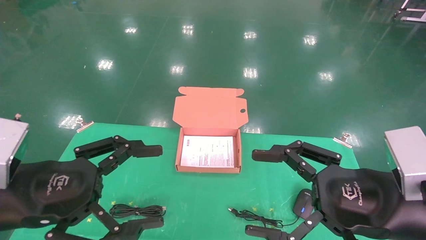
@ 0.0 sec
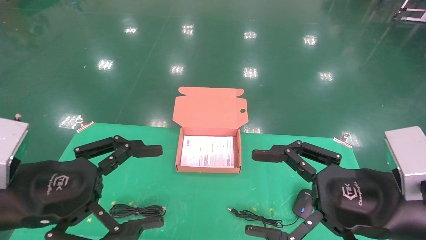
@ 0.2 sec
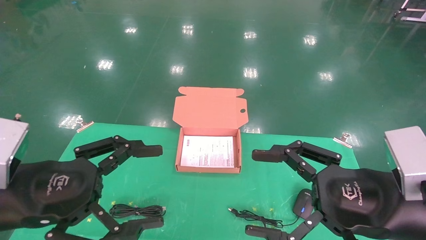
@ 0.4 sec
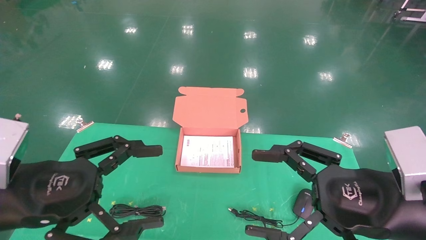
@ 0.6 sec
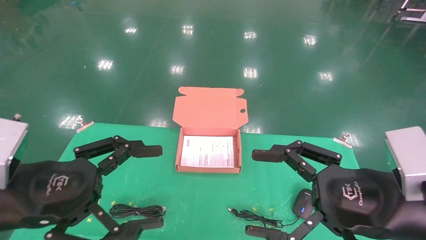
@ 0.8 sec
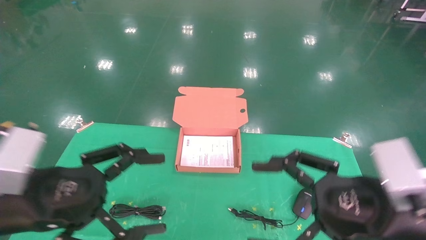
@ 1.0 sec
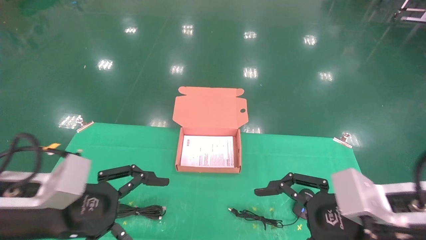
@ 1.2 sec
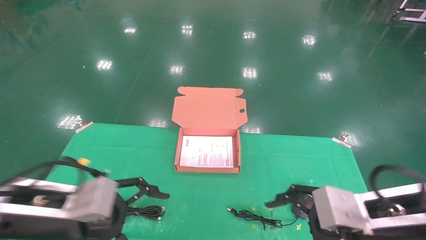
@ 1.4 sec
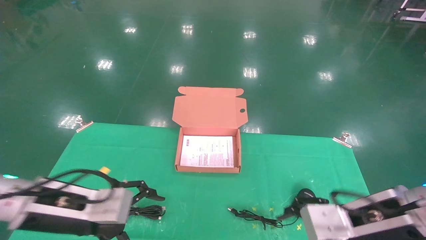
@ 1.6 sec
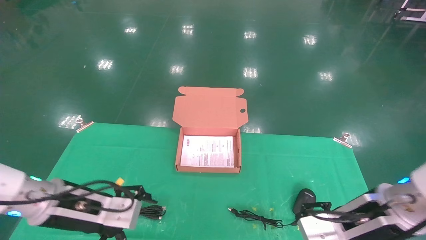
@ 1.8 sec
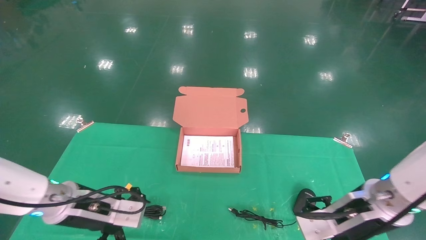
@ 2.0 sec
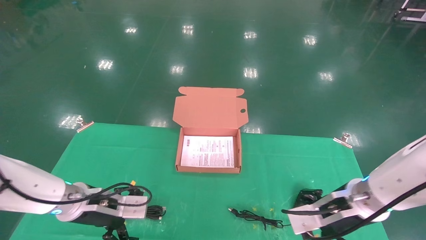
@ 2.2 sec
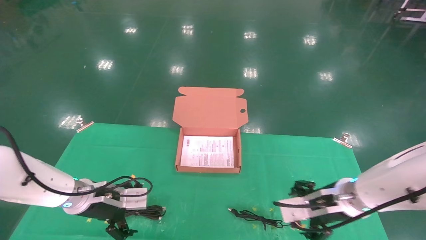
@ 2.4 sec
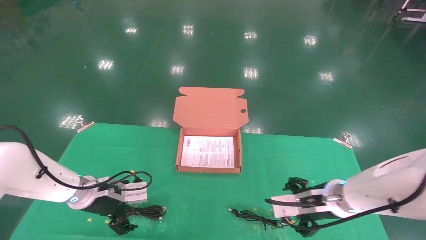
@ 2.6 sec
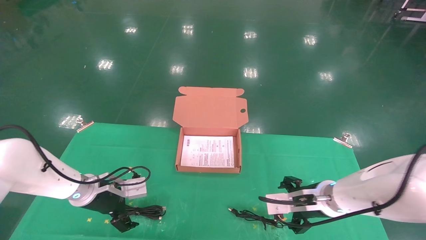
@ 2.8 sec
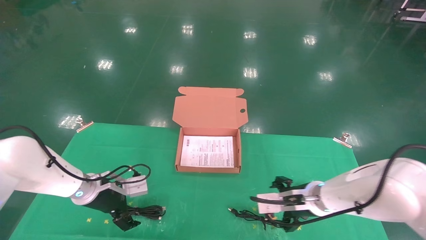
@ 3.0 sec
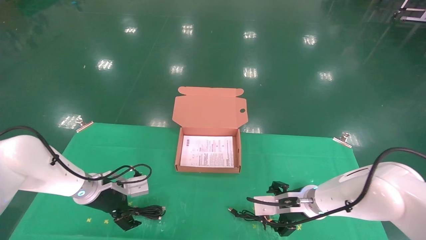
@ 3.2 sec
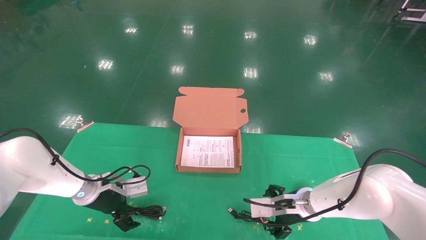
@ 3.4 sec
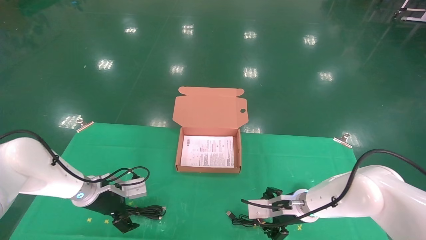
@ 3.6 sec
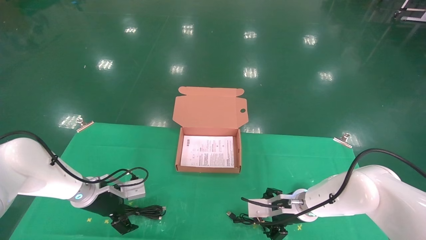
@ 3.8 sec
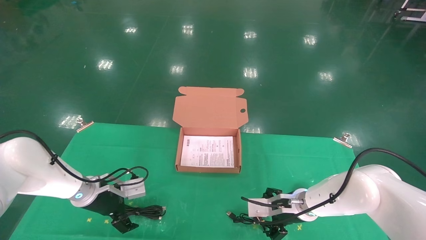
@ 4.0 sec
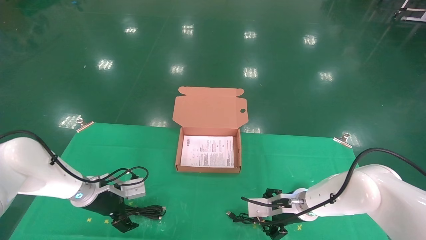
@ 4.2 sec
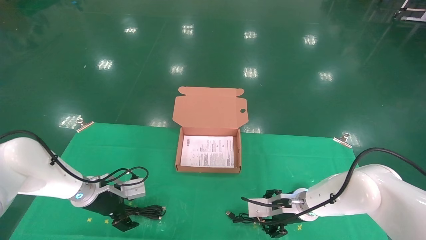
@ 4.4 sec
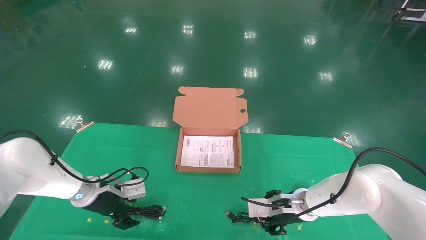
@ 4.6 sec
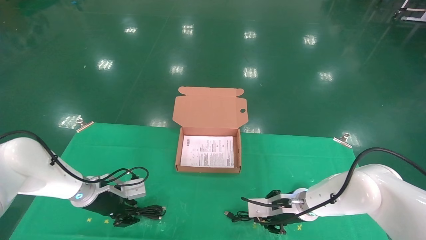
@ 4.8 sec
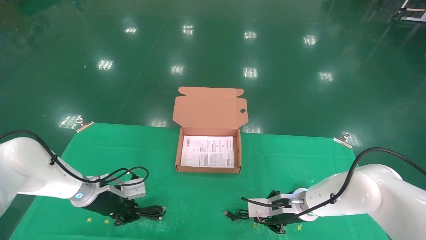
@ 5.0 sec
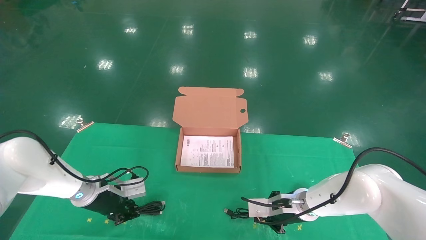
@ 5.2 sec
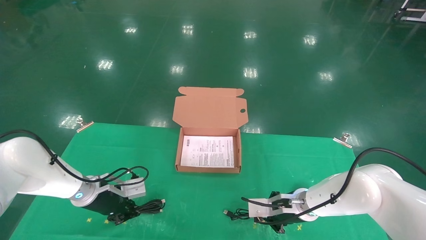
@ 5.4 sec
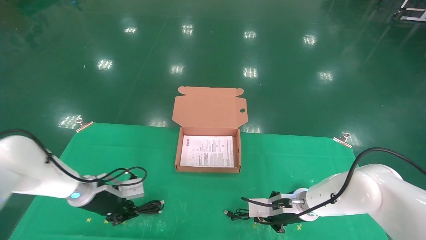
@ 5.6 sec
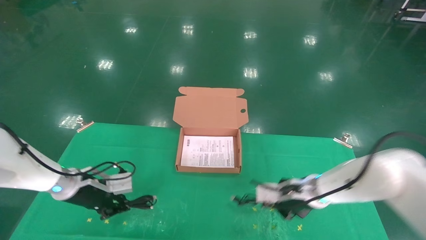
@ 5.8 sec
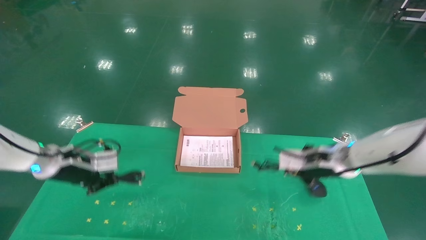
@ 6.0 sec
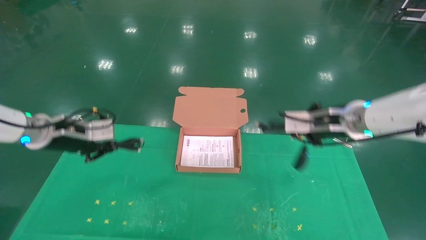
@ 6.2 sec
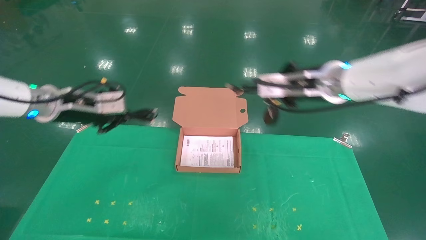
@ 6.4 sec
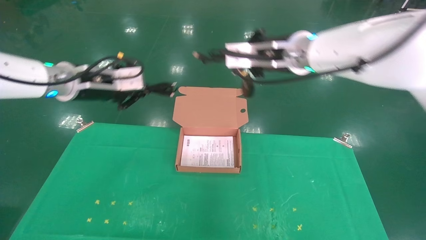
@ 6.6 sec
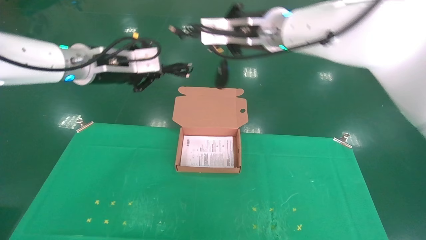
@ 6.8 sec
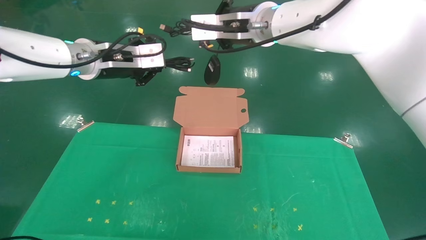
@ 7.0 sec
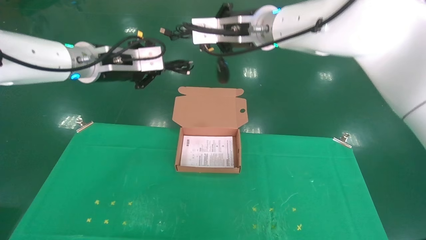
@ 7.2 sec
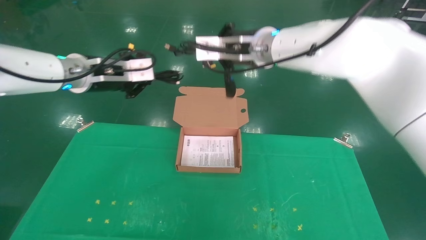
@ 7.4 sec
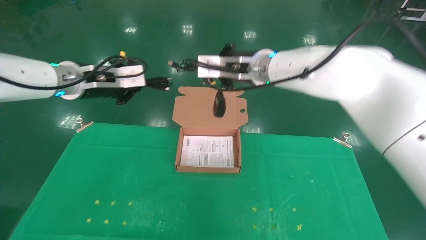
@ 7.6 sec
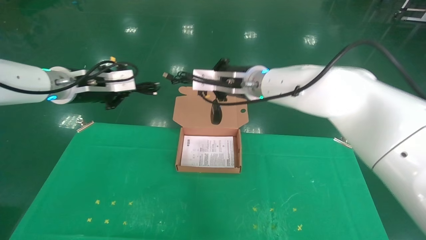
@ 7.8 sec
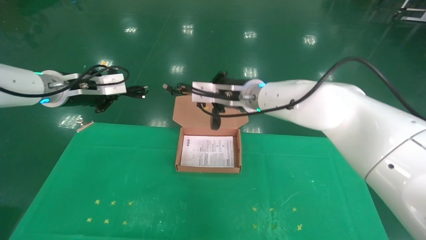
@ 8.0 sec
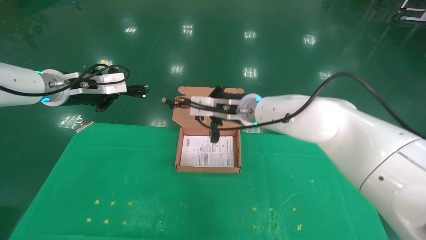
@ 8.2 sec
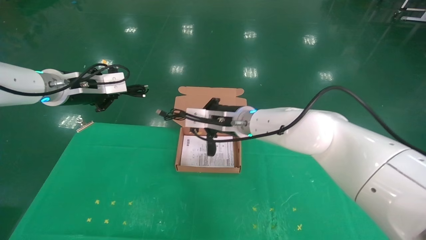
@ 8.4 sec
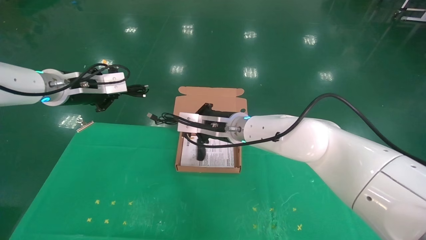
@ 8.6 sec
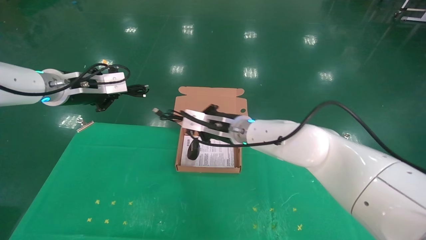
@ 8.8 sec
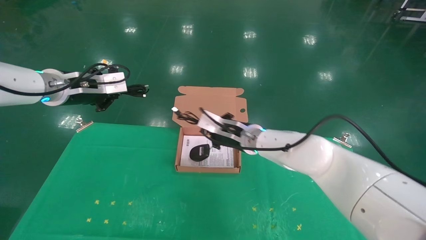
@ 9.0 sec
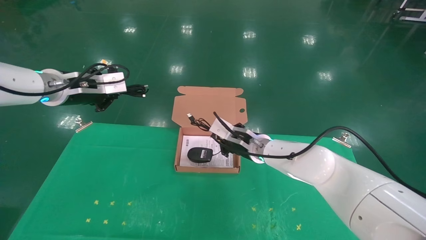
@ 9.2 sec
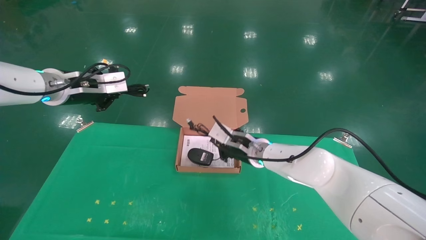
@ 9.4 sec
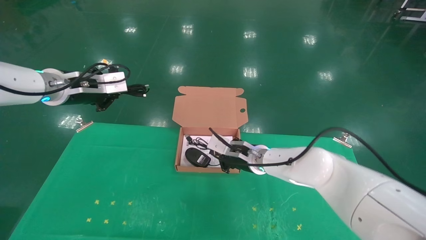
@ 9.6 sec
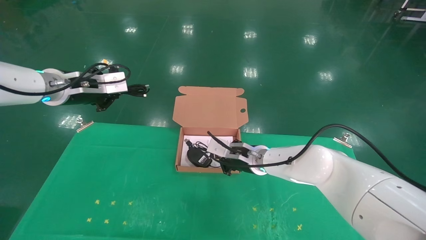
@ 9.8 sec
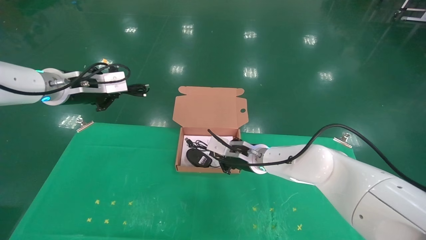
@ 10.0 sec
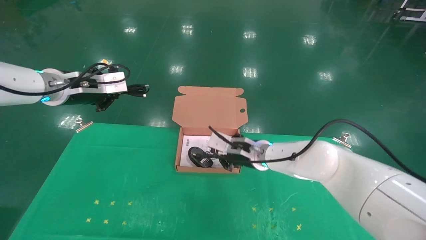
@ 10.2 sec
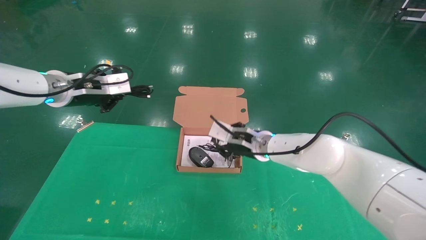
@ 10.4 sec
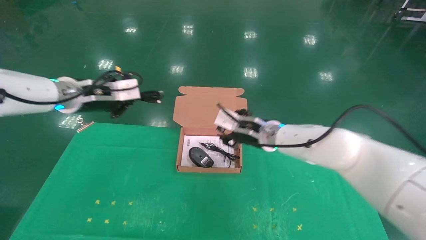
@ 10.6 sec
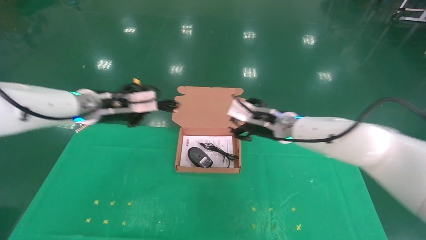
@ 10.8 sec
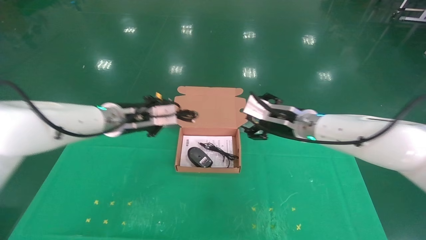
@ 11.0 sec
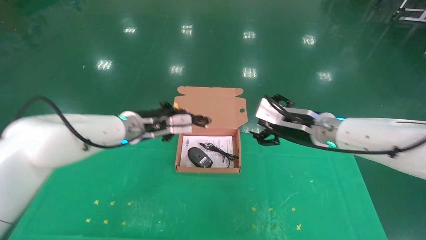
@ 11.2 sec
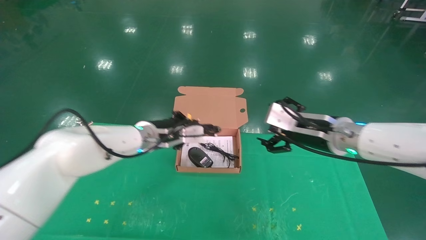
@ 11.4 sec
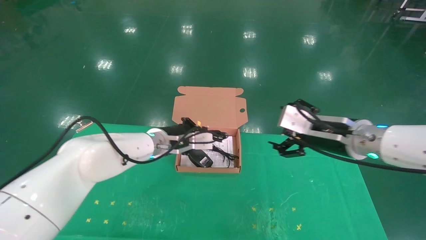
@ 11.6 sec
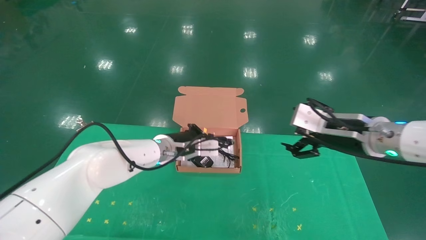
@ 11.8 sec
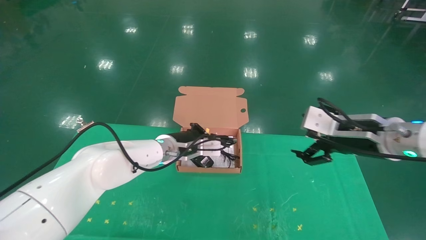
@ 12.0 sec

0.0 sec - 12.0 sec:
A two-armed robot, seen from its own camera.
Task of the whole recording: grasp data cable left put into box grasp mouse right put into box.
Step, 1.4 sec - 6.2 sec: Grab and pick up both the mouse and power cord from the accessory packaging area at the same time.
0.0 sec - 1.6 sec: The left gripper is displaced forward and downward by about 10 cm, while the right gripper travels forward by roughly 5 cm.
1.6 sec - 3.0 sec: The two grippers go some 20 cm forward and downward.
3.0 sec - 4.4 sec: There are only small adjustments of the grippers.
4.4 sec - 6.0 sec: Both grippers move upward, about 10 cm. The left gripper closes up. The right gripper closes its fingers.
6.0 sec - 7.6 sec: The left gripper is displaced upward by approximately 15 cm. Meanwhile the right gripper moves upward and to the left, roughly 25 cm.
7.6 sec - 9.0 sec: The right gripper is displaced downward by roughly 15 cm.
9.0 sec - 10.4 sec: The grippers stay close to where they were, moving slightly.
10.4 sec - 12.0 sec: The right gripper shifts some 25 cm to the right, backward and upward, and opens its fingers. Meanwhile the left gripper is displaced to the right and downward by about 25 cm.

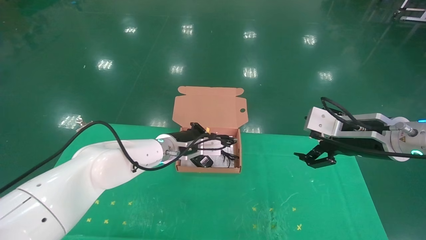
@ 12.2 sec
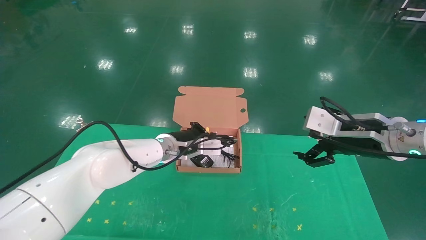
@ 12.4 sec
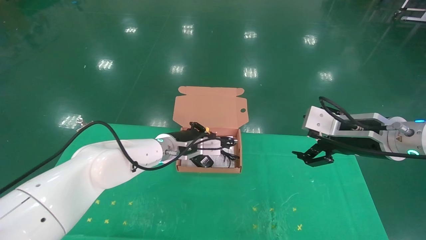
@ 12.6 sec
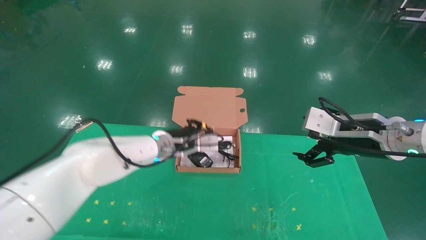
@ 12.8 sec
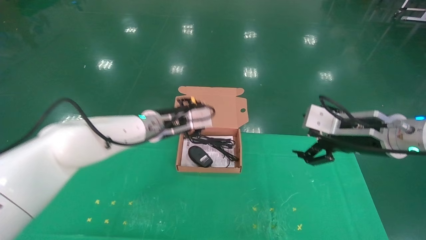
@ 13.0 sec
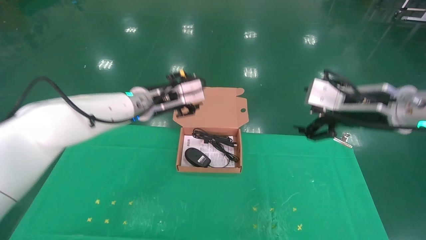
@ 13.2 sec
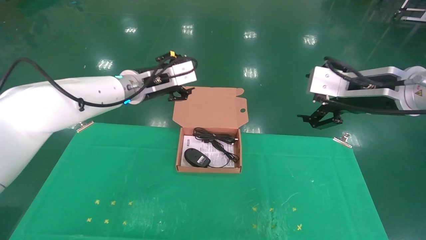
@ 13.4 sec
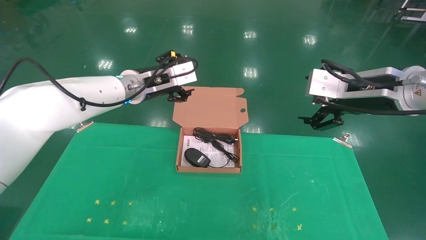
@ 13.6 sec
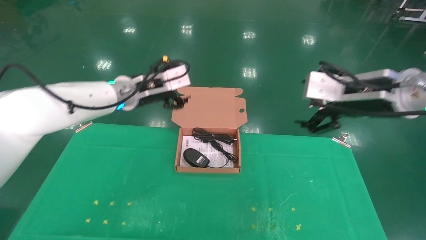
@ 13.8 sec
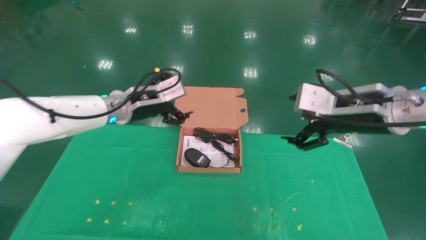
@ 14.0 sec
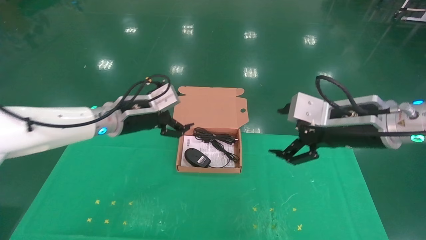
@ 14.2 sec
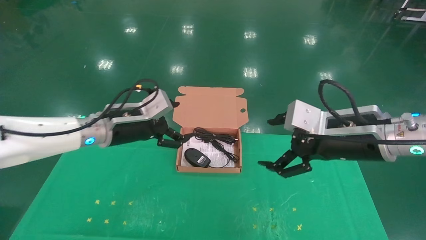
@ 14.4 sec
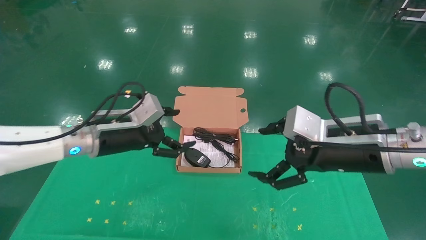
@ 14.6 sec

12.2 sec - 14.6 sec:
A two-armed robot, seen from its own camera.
Task of the whole recording: grasp data cable left put into box grasp mouse right put into box.
12.2 sec - 13.4 sec: The left gripper moves upward, approximately 15 cm, and opens up, while the right gripper goes roughly 5 cm upward.
13.4 sec - 14.6 sec: The left gripper is displaced backward, to the left and downward by roughly 10 cm, and opens its fingers; the right gripper goes roughly 5 cm downward.
